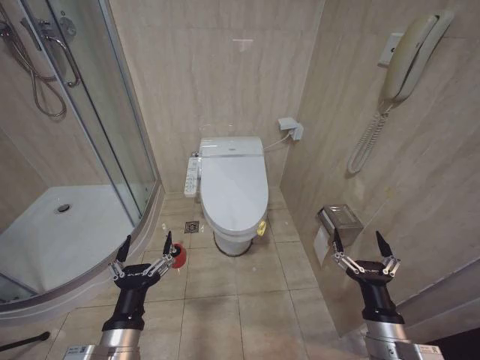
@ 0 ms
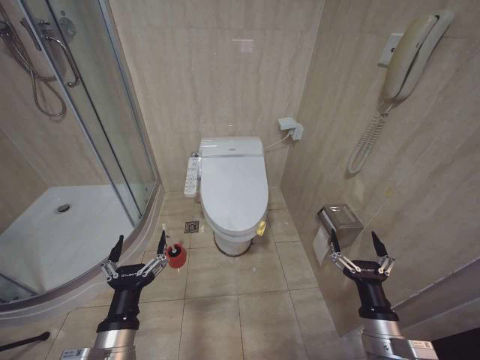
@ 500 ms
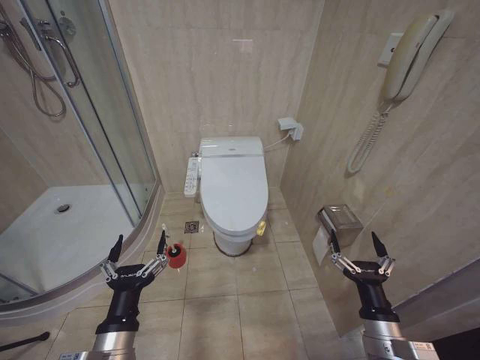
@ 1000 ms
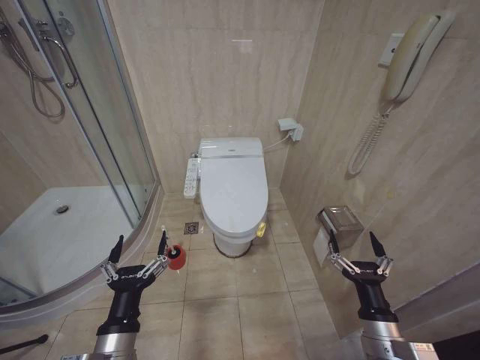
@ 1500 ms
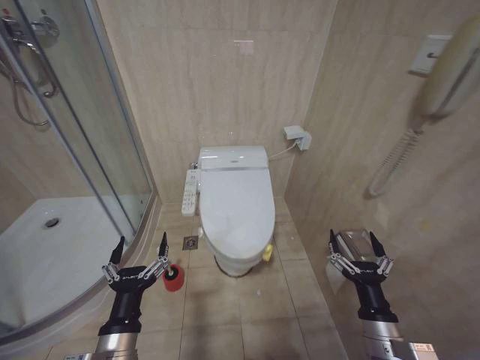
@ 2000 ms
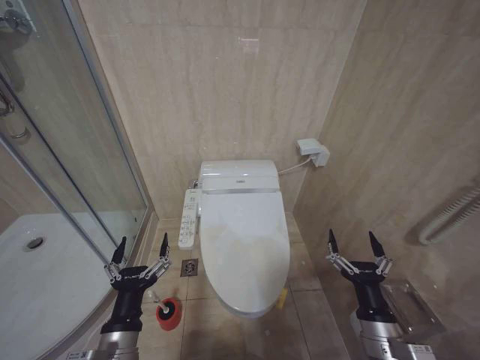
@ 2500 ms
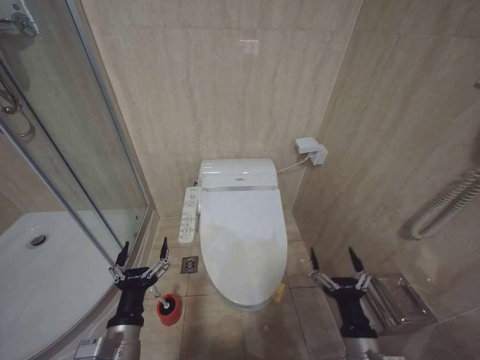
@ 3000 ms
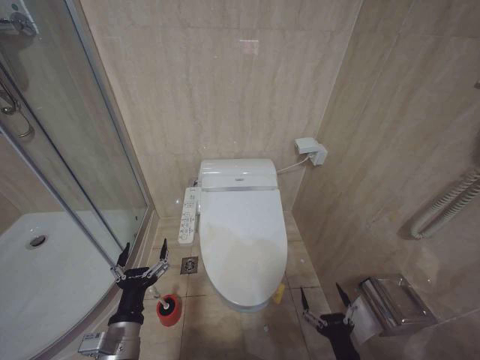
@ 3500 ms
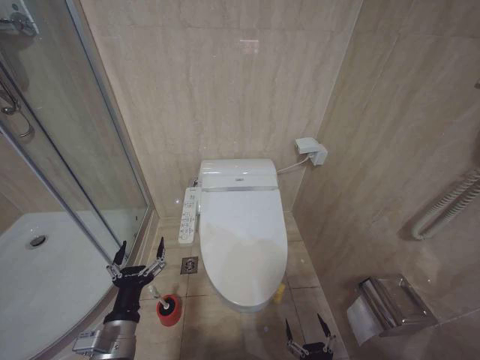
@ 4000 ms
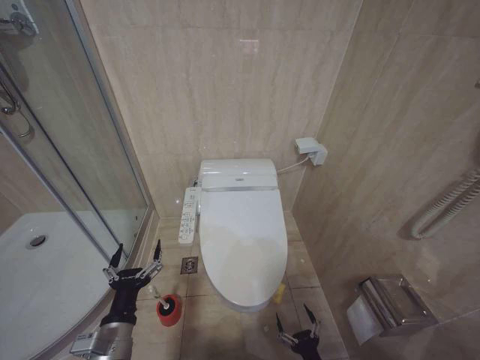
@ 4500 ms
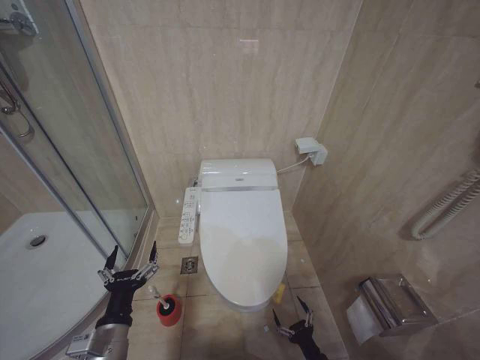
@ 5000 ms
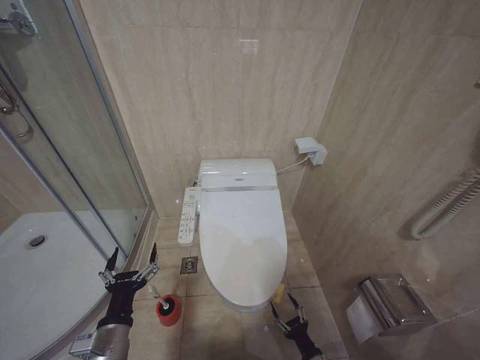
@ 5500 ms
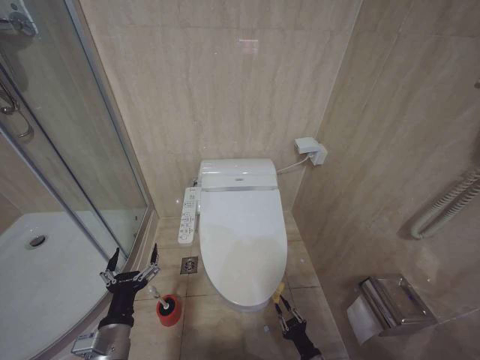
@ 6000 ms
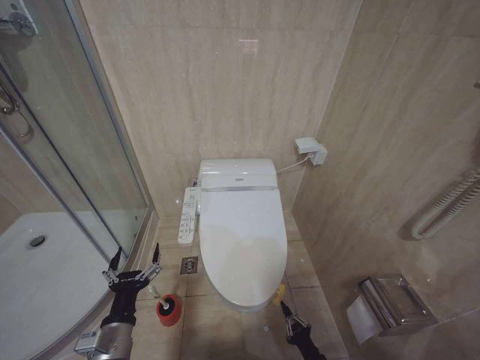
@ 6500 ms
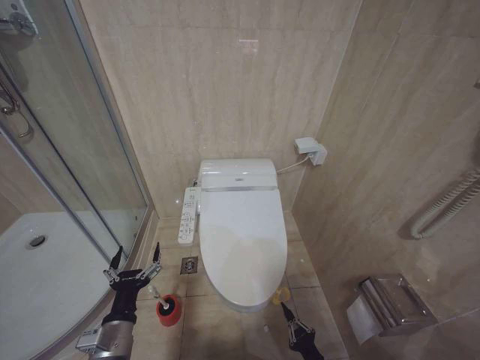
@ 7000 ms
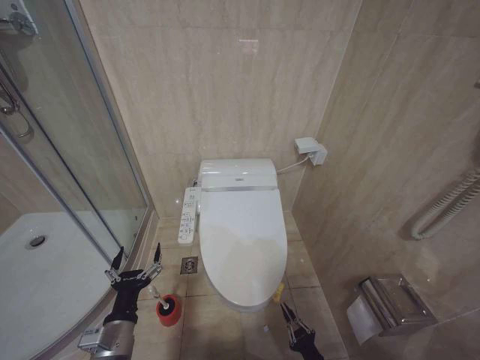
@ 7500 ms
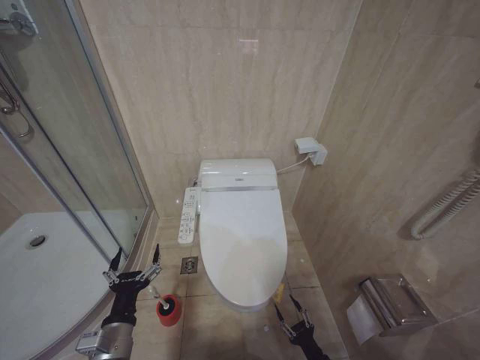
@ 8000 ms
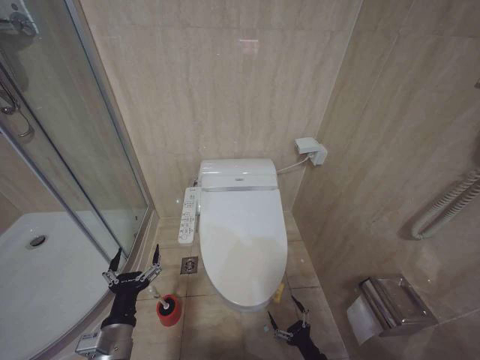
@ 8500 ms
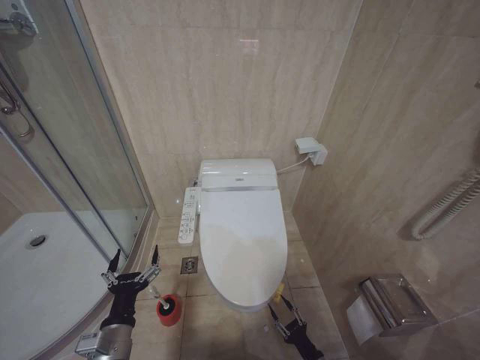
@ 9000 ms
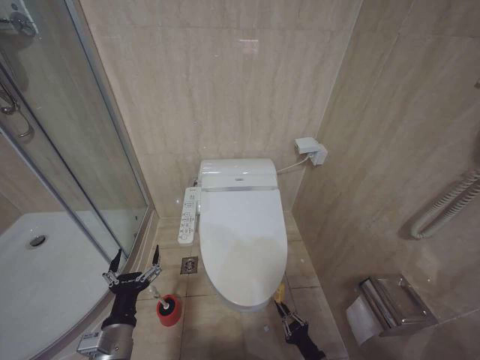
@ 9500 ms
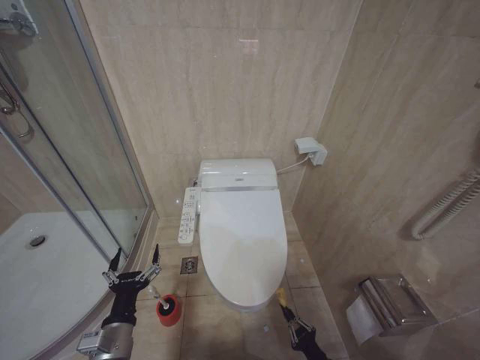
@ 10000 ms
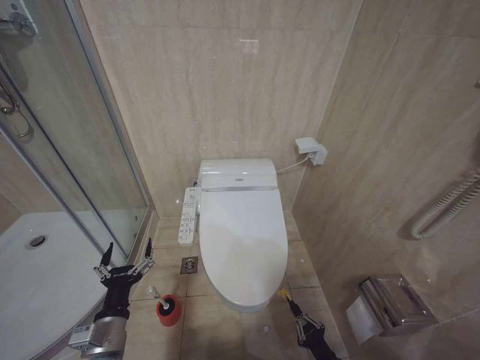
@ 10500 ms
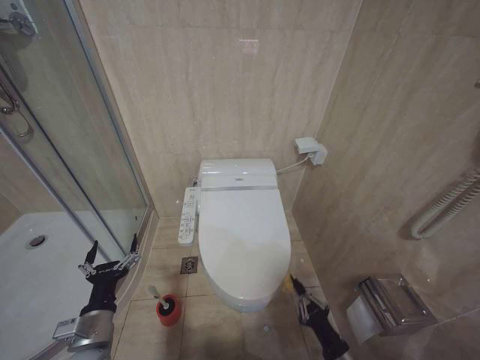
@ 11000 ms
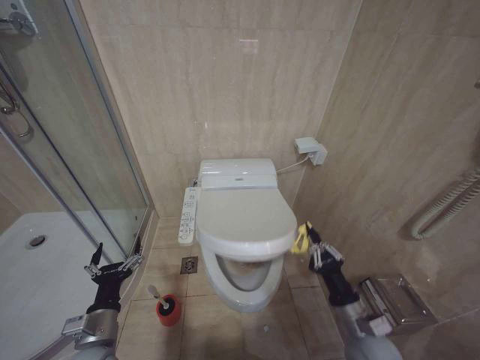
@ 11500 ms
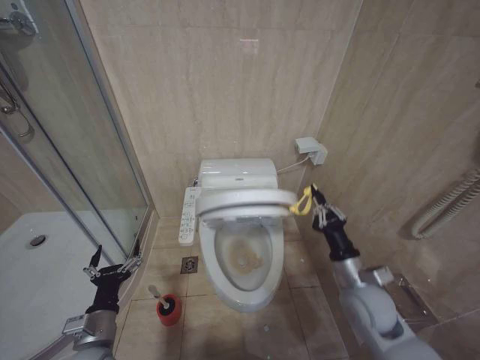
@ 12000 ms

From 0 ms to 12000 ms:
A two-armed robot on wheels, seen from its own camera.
Task of the whole recording: Open the toilet lid, clean the toilet bowl with a toilet brush, close the toilet lid, and flush.
From 2000 ms to 4000 ms: The left gripper moves some 5 cm. The right gripper moves downward and backward, some 20 cm.
From 4000 ms to 6000 ms: The right gripper heads forward and downward, covering approximately 15 cm, and closes its fingers.
From 6000 ms to 8000 ms: There are only small adjustments of the grippers.
From 10000 ms to 12000 ms: The left gripper moves approximately 5 cm. The right gripper travels upward and forward by some 30 cm.

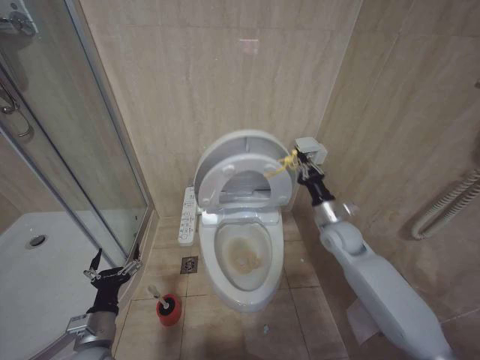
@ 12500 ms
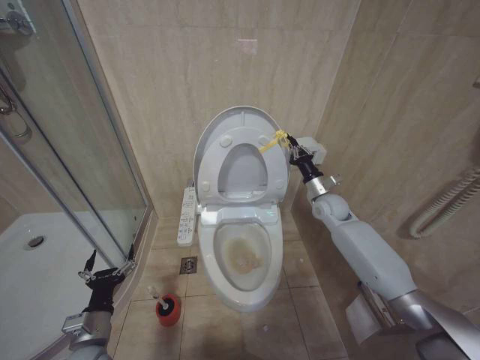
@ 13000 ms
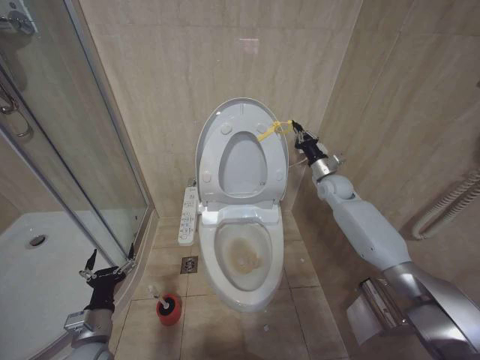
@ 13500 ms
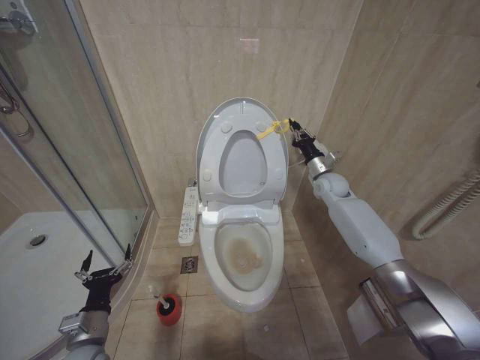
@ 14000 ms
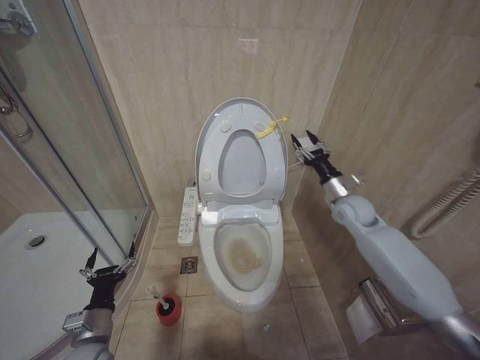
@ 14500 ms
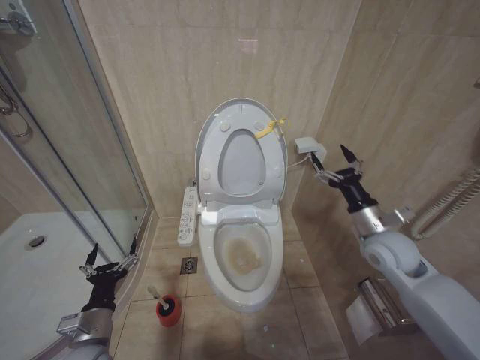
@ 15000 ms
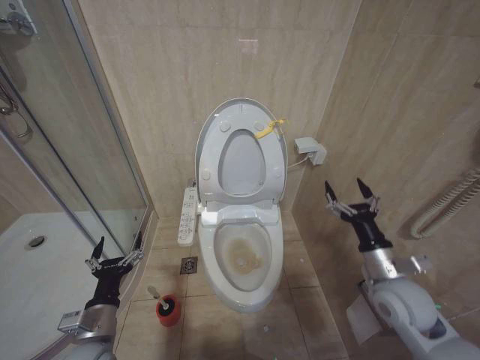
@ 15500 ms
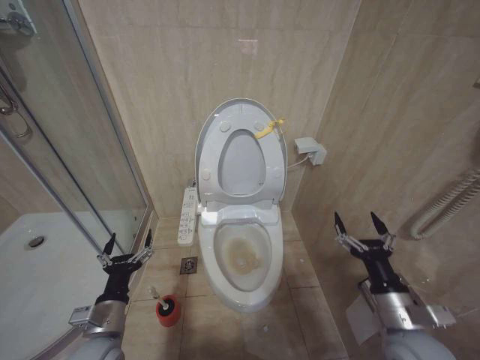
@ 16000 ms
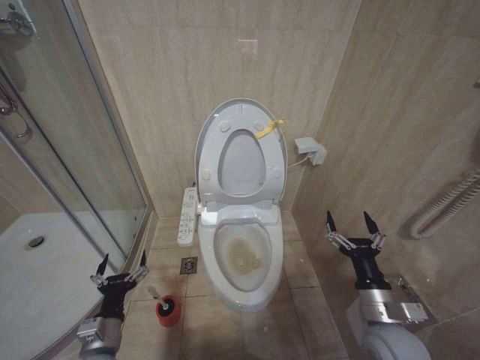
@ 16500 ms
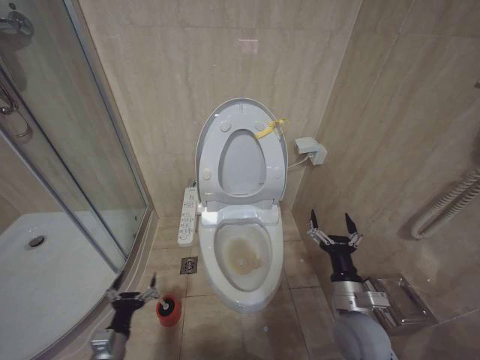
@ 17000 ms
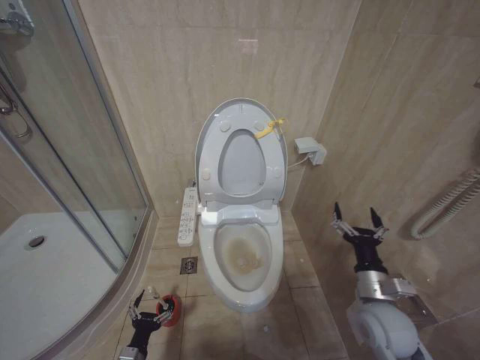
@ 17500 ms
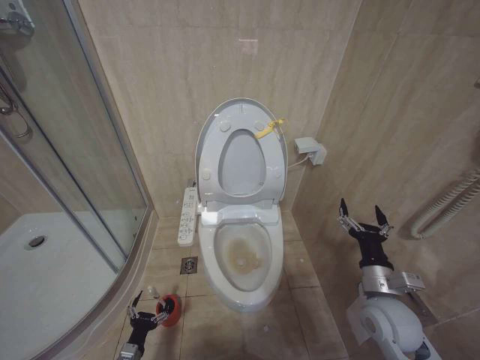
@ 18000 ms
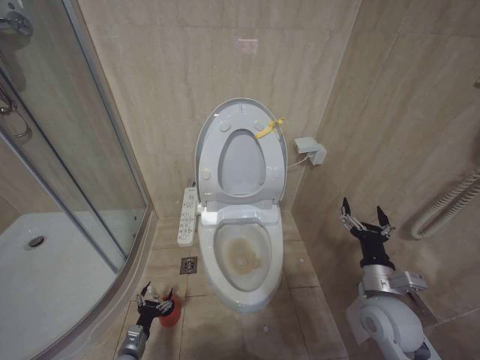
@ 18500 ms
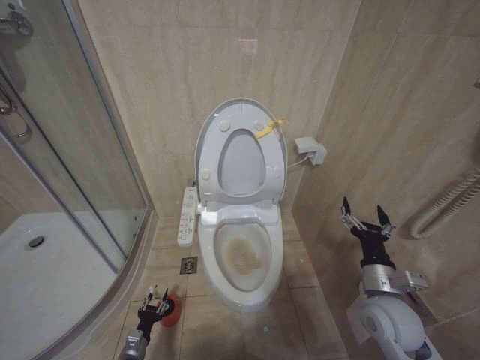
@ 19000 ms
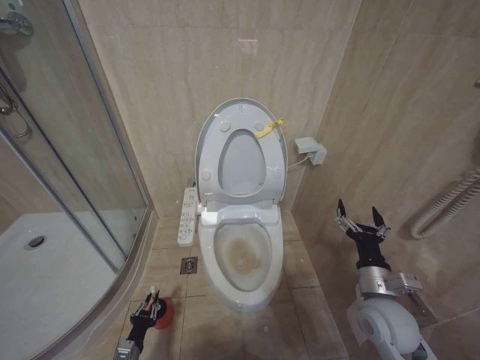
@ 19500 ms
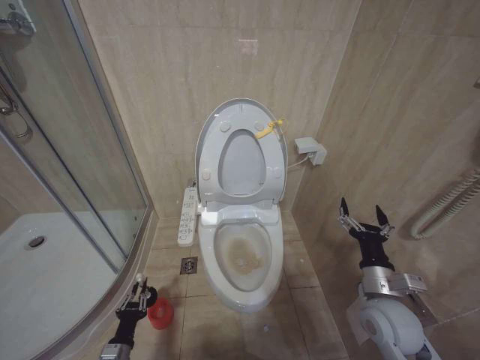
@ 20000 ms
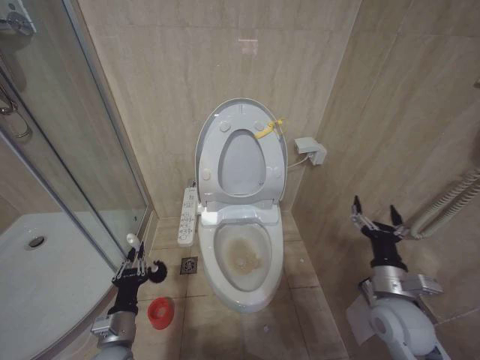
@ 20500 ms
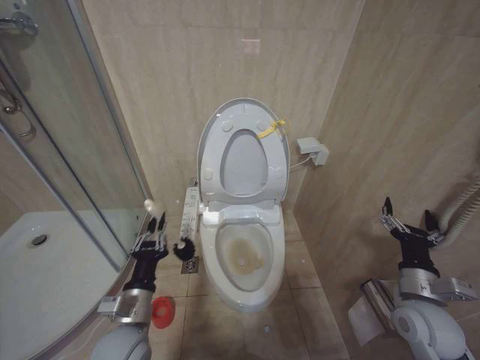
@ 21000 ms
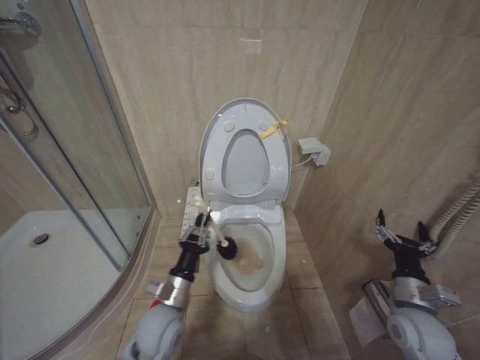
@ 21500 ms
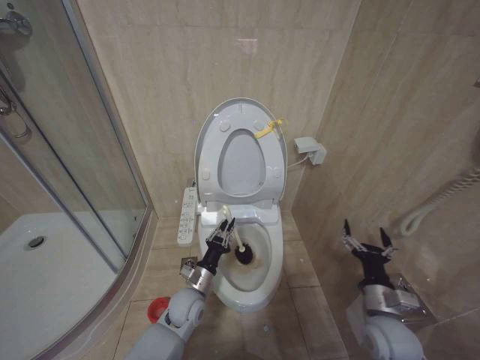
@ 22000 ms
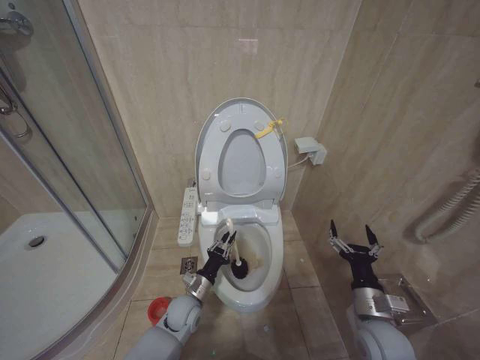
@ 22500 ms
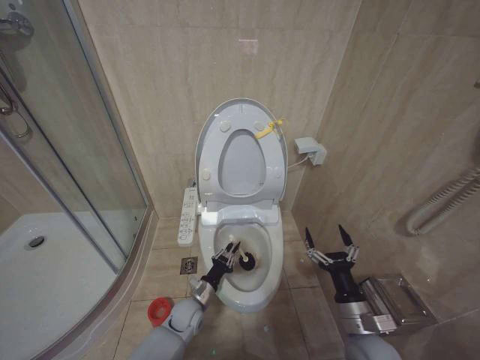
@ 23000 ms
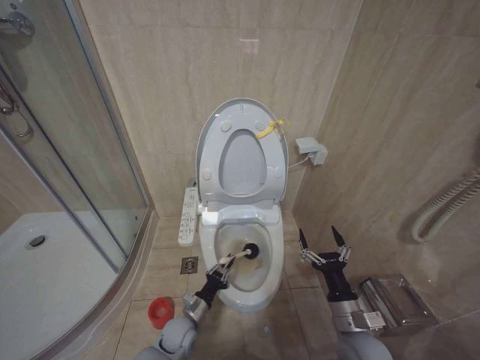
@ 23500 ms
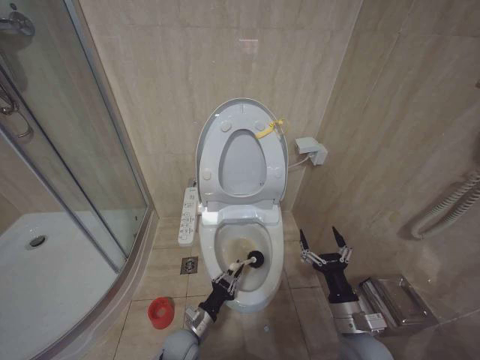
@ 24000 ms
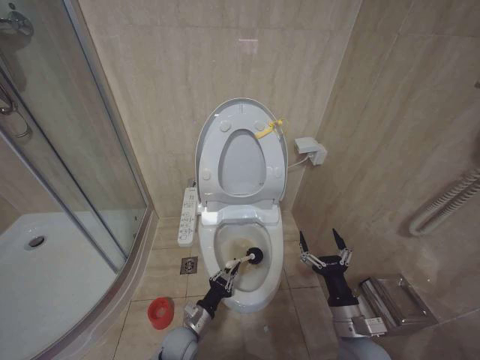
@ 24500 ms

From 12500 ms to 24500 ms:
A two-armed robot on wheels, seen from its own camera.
Task of the whole recording: Open the toilet lid, clean the toilet bowl with a toilet brush, close the toilet lid, and flush.
From 12500 ms to 14500 ms: The right gripper shifts about 10 cm forward and upward, and opens up.
From 14500 ms to 16500 ms: The right gripper heads backward, covering about 30 cm, and opens.
From 16500 ms to 18500 ms: The left gripper goes approximately 25 cm downward.
From 18500 ms to 20500 ms: The left gripper heads upward, covering some 20 cm, and closes up.
From 20500 ms to 22500 ms: The right gripper is displaced downward by approximately 5 cm; the left gripper is displaced forward, to the right and downward by about 20 cm.
From 22500 ms to 24500 ms: The left gripper is displaced downward and backward by roughly 10 cm. Meanwhile the right gripper shifts by about 5 cm.

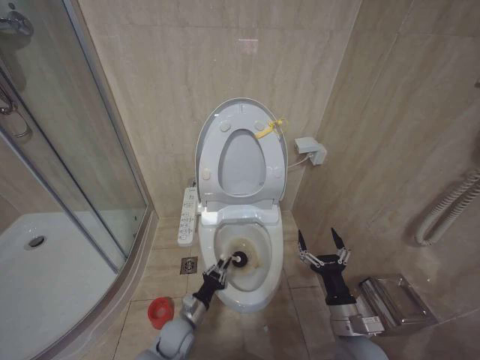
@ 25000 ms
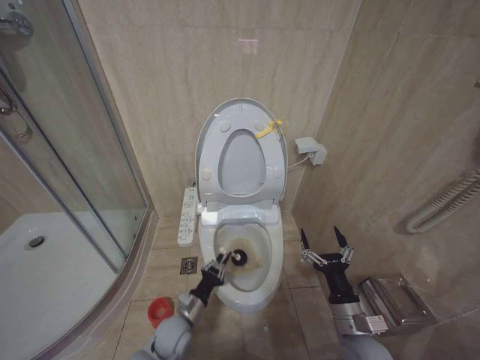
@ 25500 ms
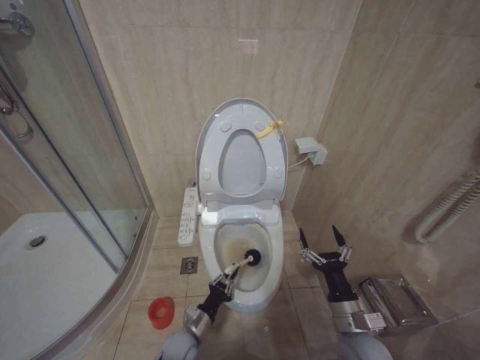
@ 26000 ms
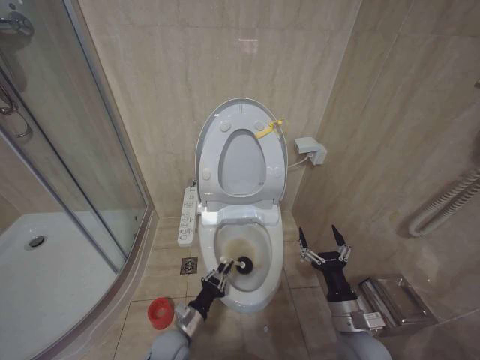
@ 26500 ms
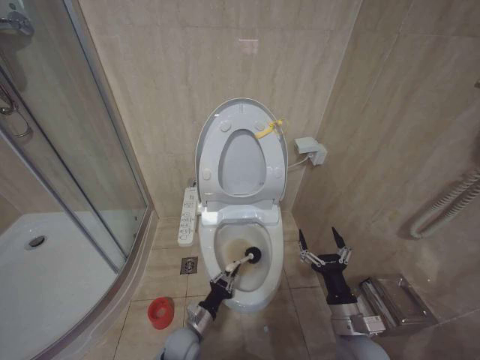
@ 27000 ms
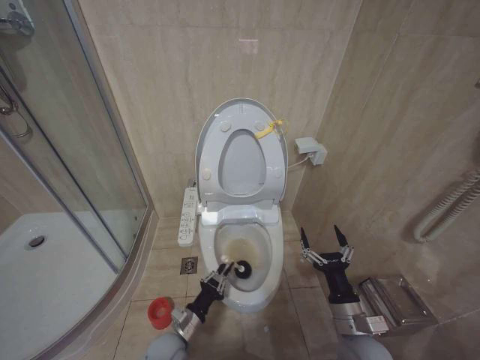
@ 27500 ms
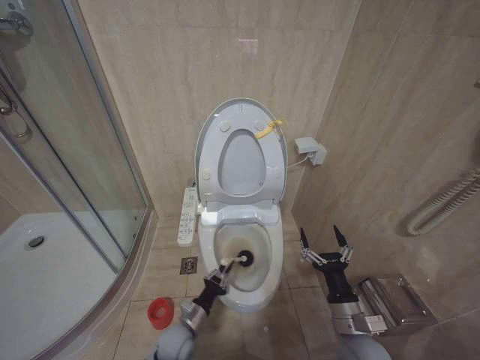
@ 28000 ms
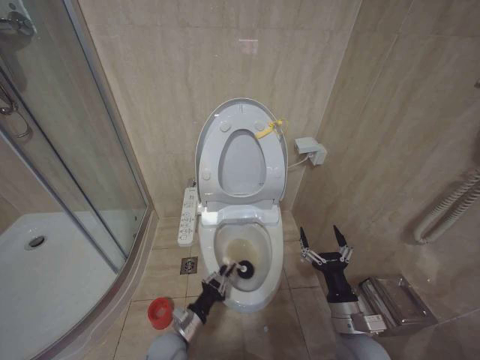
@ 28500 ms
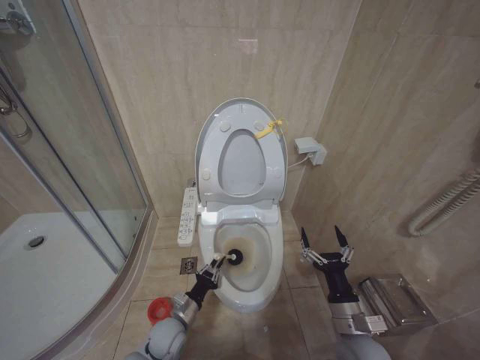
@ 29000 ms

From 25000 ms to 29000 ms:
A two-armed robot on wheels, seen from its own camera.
Task of the whole recording: Open the toilet lid, clean the toilet bowl with a toilet brush, close the toilet lid, and flush.
From 25000 ms to 29000 ms: The grippers move only a little.
